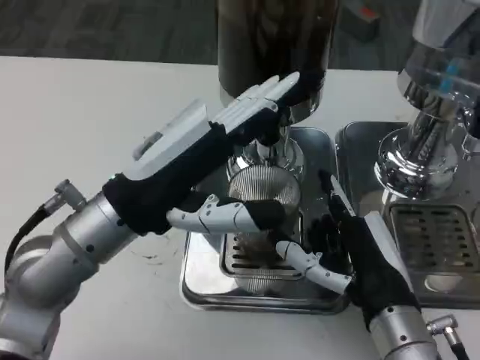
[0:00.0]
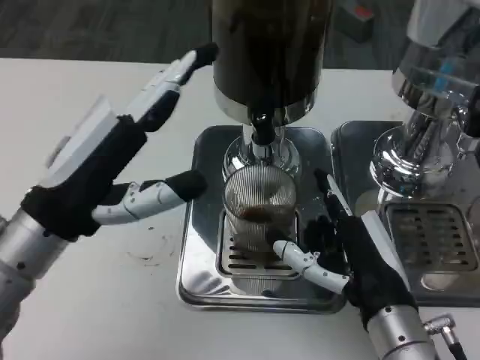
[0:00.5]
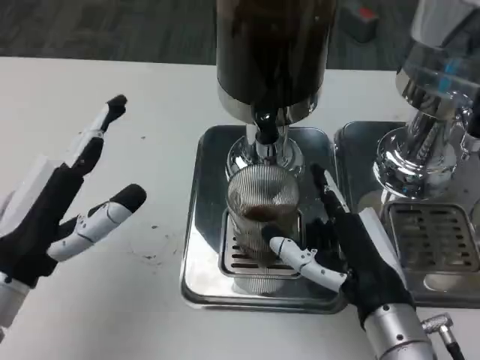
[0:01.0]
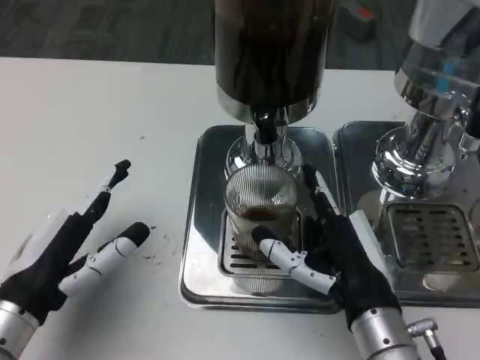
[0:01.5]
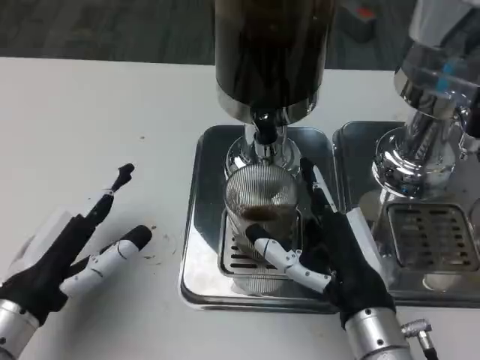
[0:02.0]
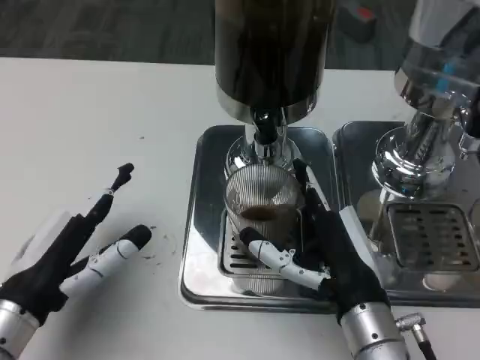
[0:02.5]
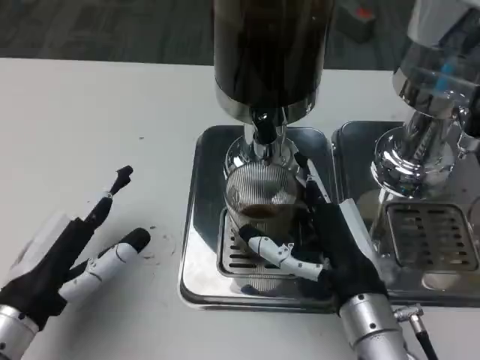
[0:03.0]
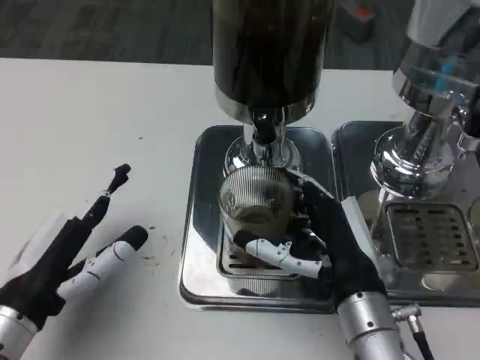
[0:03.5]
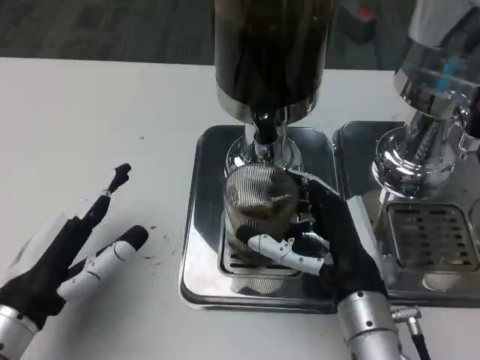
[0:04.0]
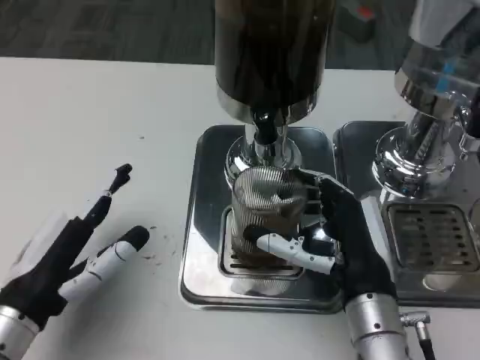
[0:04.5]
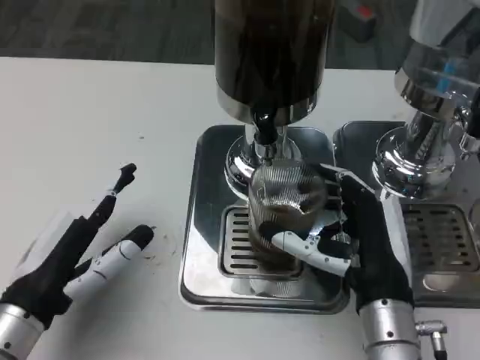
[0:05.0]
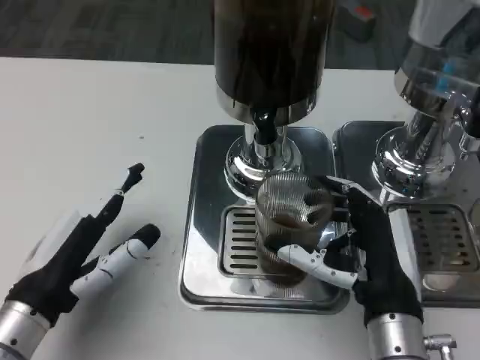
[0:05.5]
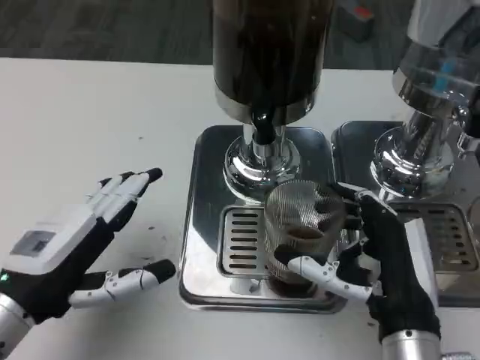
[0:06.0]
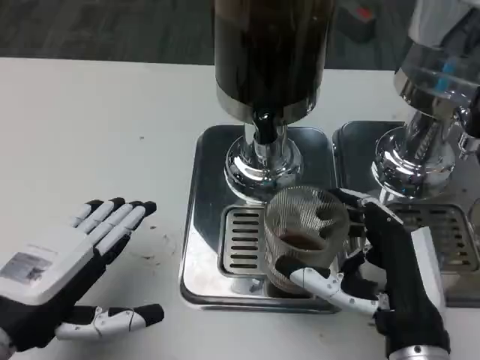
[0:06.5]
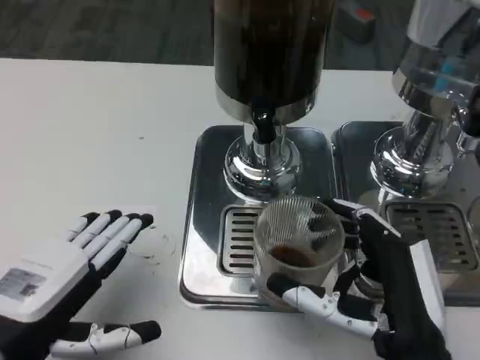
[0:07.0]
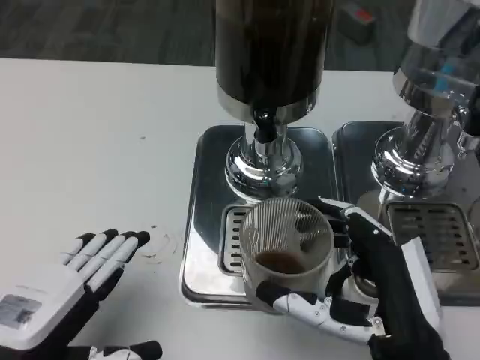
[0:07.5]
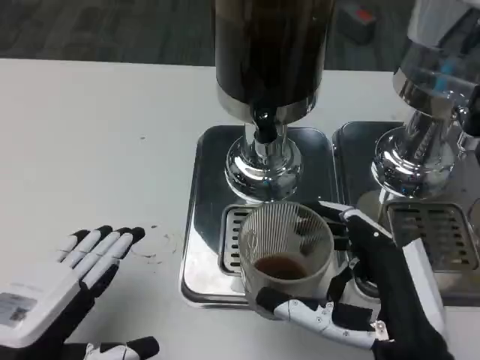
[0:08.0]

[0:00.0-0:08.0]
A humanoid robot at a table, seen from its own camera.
Task of the whole recording: Grasp the cup under the faucet to collect the drink, then remove the cup.
0:00.0 to 0:02.0: The left hand moves downward, to the left and backward, roughly 15 cm.
0:02.0 to 0:04.0: The hands move only a little.
0:06.0 to 0:08.0: The left hand is displaced backward by some 5 cm, while the right hand moves about 5 cm.

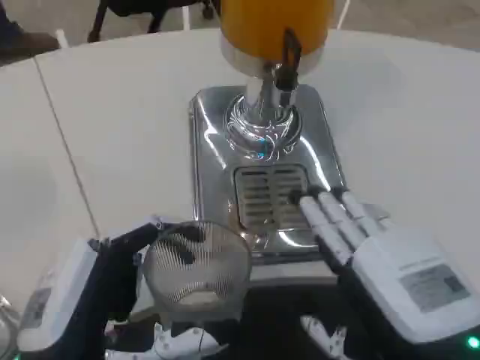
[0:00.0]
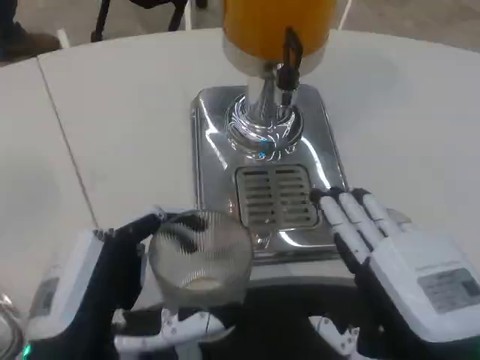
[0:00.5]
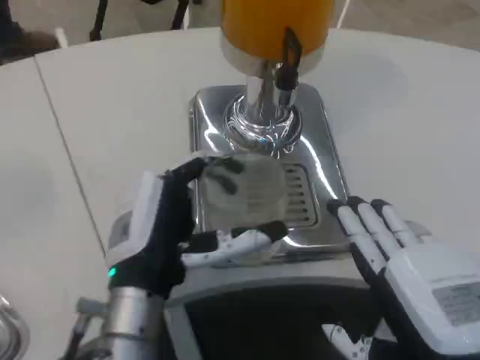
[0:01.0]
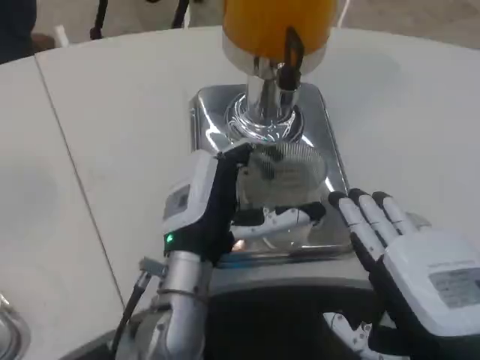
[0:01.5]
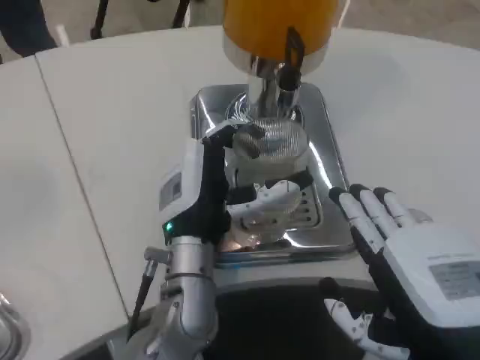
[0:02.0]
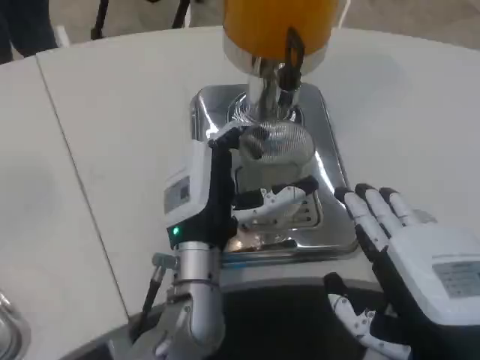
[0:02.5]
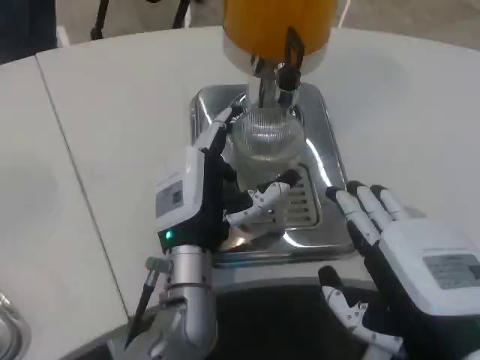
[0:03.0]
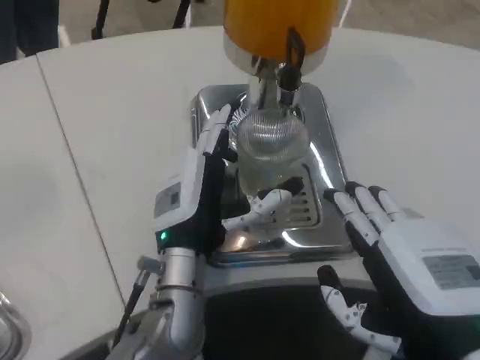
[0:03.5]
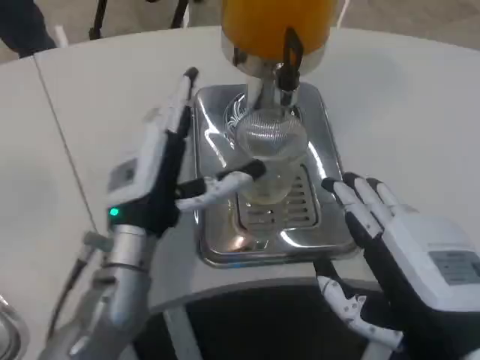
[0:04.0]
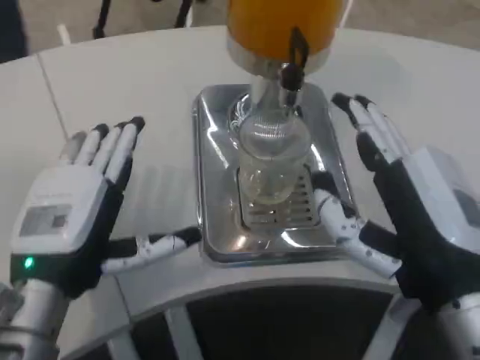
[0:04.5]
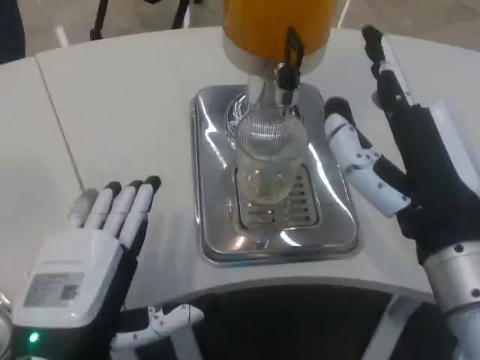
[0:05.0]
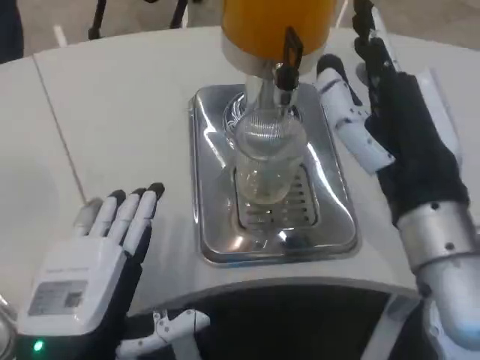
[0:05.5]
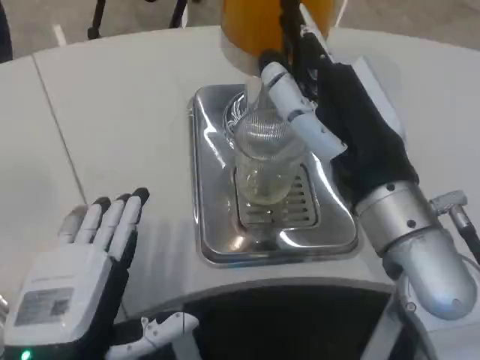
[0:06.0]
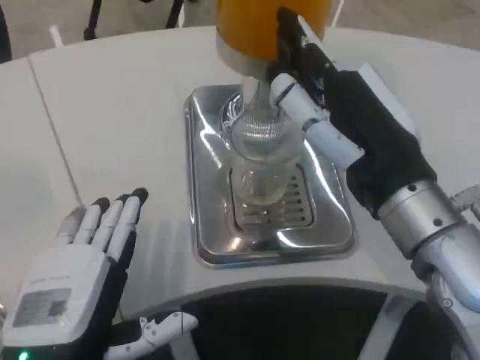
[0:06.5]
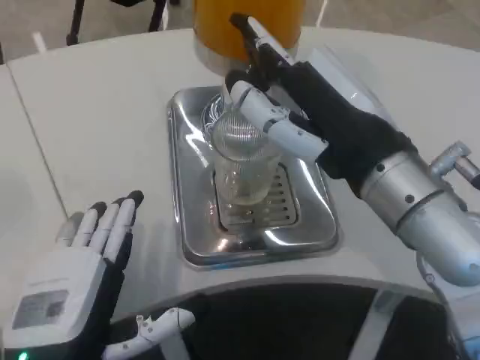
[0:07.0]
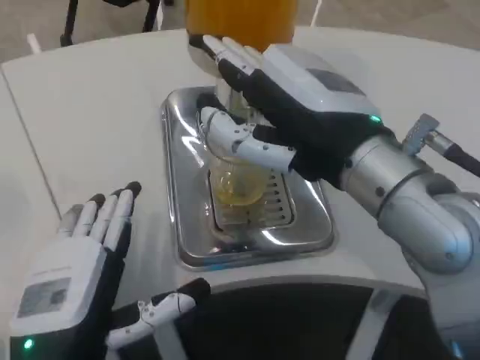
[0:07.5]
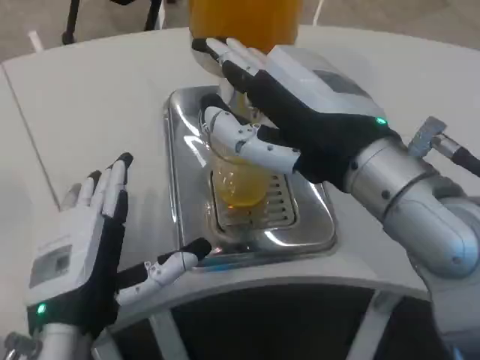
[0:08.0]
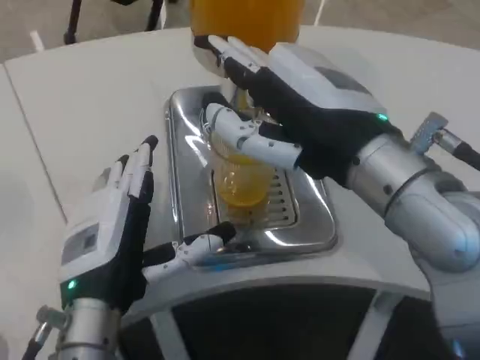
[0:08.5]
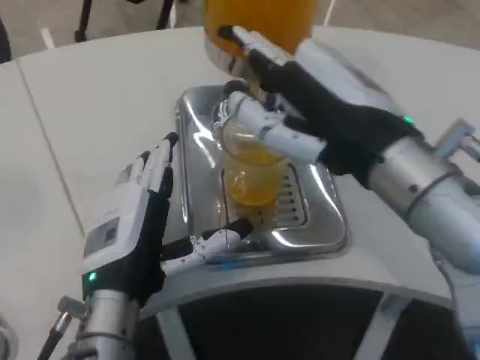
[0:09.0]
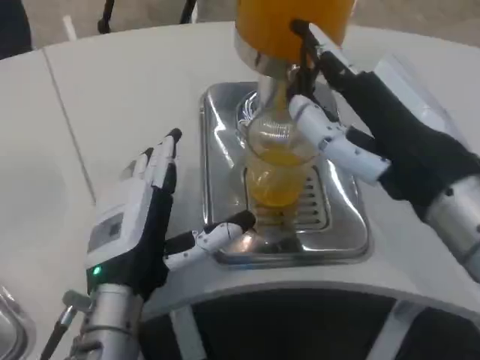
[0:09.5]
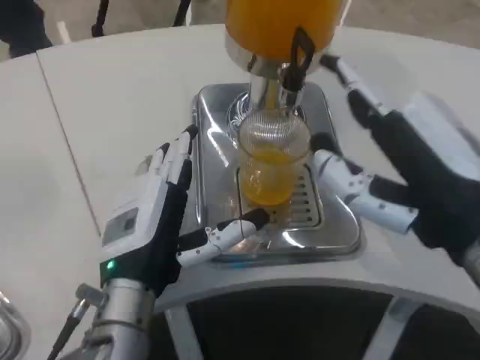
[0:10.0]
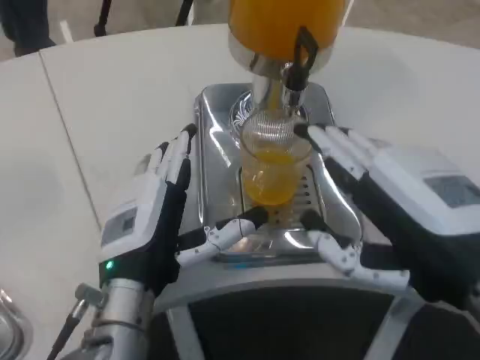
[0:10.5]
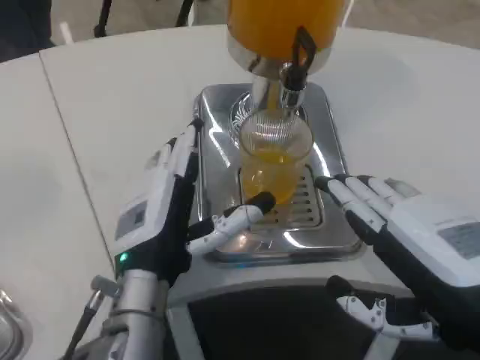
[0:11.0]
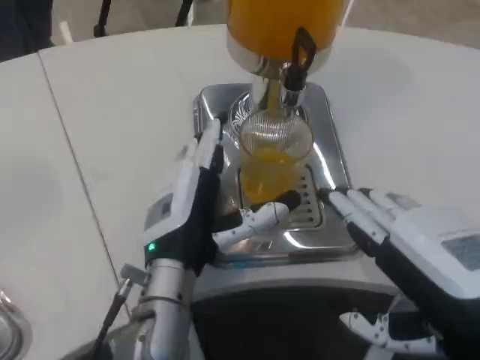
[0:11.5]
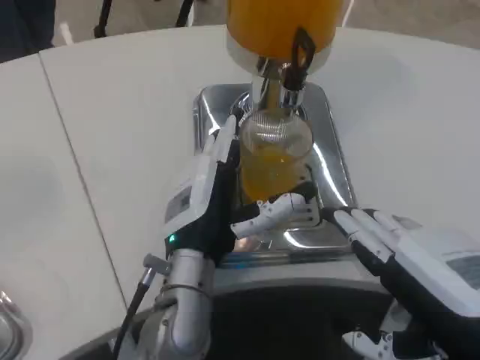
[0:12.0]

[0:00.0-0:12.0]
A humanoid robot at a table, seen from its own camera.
Task of the whole recording: Grasp the cup under the faucet to collect the drink, then remove the cup.
0:00.0 to 0:02.0: The left hand moves forward and to the right, some 20 cm.
0:02.0 to 0:04.0: The left hand shifts some 5 cm to the left.
0:04.0 to 0:06.0: The right hand shifts some 10 cm forward and upward; the left hand travels backward by about 15 cm.
0:06.0 to 0:08.0: The left hand is displaced forward by approximately 5 cm.
0:08.0 to 0:10.0: The right hand heads to the right and backward, covering some 10 cm, while the left hand shifts by roughly 5 cm.
0:10.0 to 0:12.0: The right hand moves about 5 cm. Meanwhile the left hand heads to the right, covering some 5 cm.

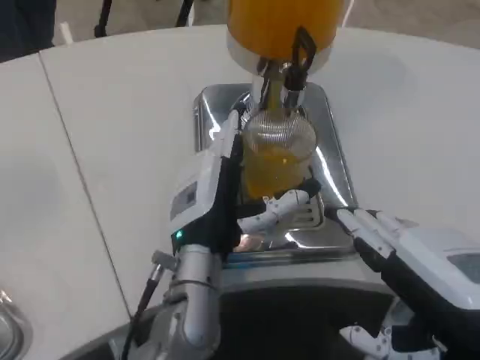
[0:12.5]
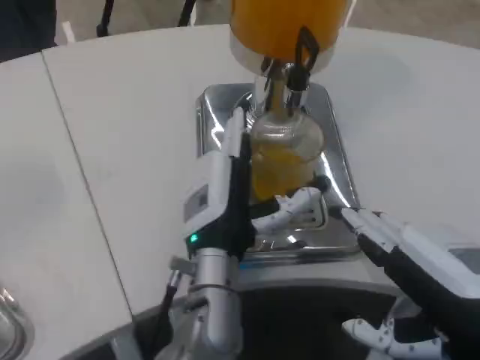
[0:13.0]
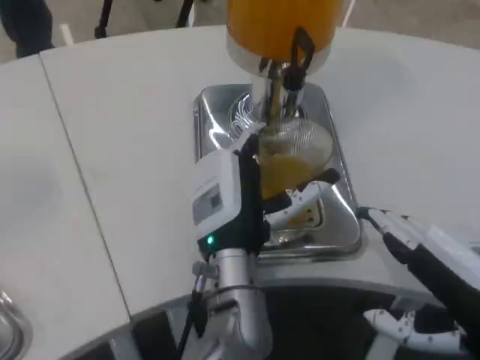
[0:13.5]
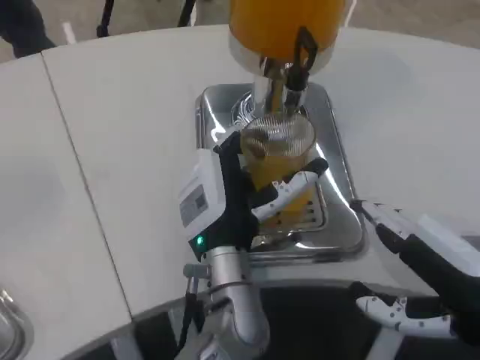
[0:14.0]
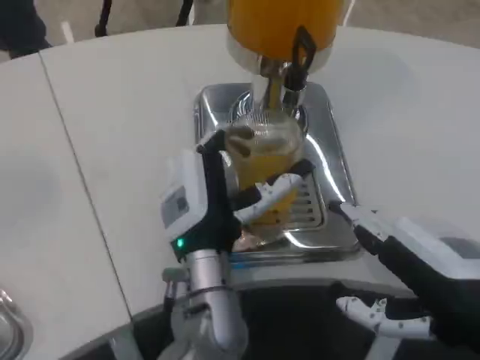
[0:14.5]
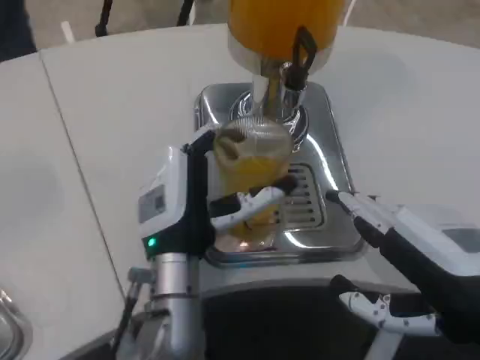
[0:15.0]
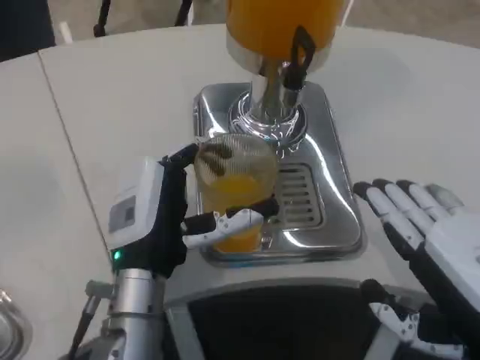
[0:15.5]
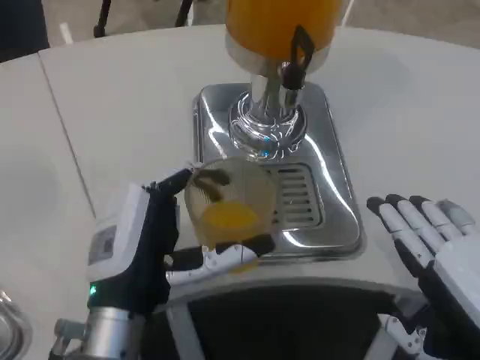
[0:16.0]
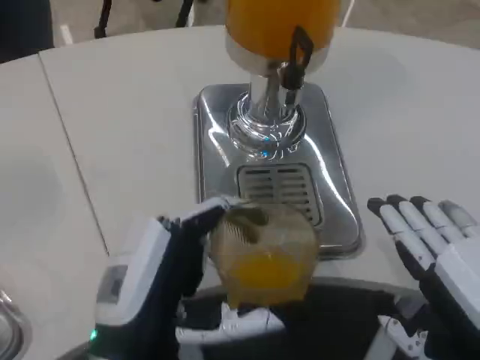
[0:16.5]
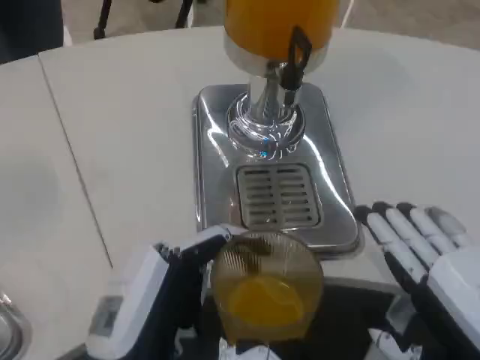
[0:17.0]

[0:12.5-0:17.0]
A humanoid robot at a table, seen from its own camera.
Task of the whole recording: Grasp the cup under the faucet to collect the drink, then remove the cup.
0:12.5 to 0:14.5: There are only small adjustments of the hands.
0:14.5 to 0:17.0: The right hand changes place by roughly 5 cm, while the left hand shifts roughly 20 cm backward and to the left.

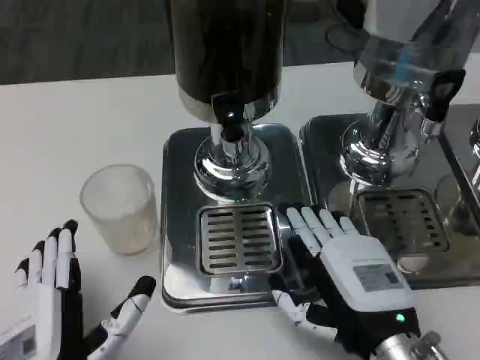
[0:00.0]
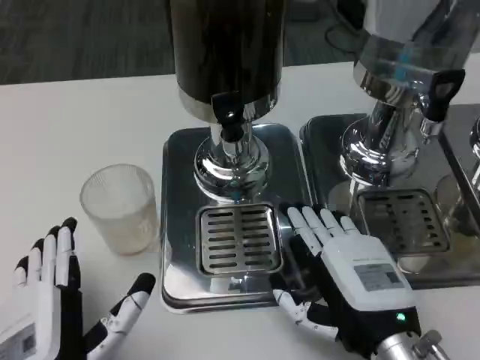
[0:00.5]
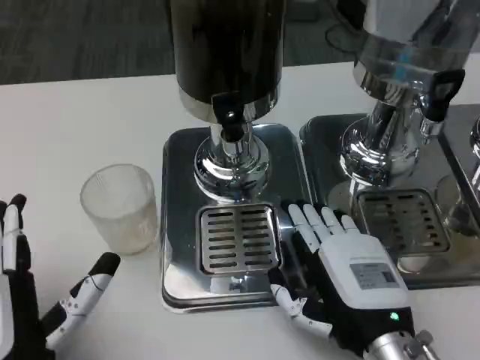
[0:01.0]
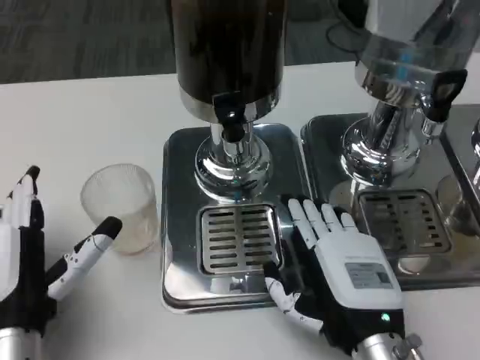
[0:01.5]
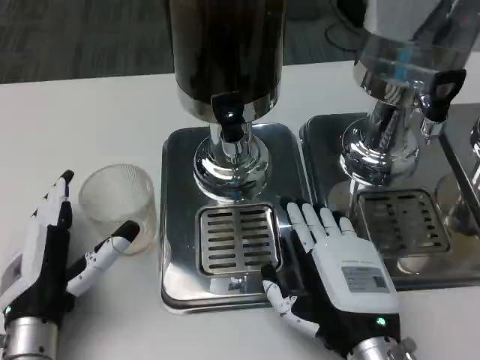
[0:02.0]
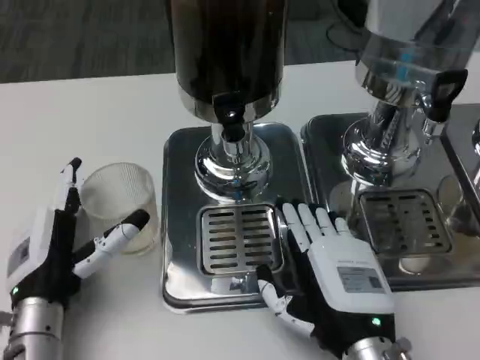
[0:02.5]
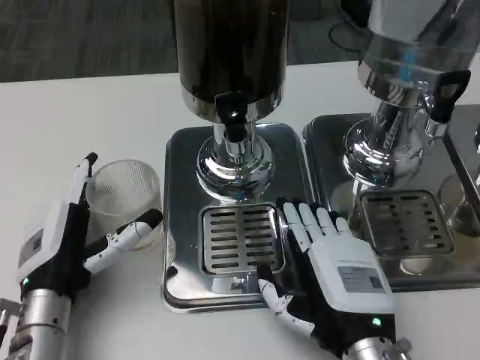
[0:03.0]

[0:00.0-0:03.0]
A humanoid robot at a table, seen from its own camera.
Task of the whole recording: Grasp the cup under the faucet to collect the drink, then remove the cup.
0:00.0 to 0:01.5: The left hand moves forward, about 5 cm.
